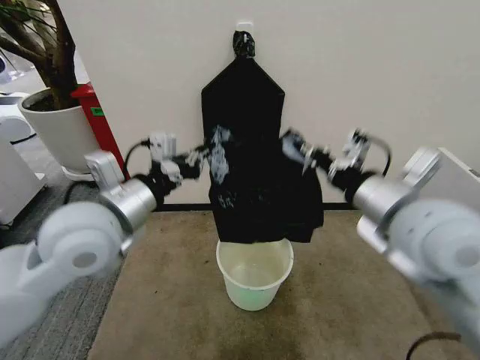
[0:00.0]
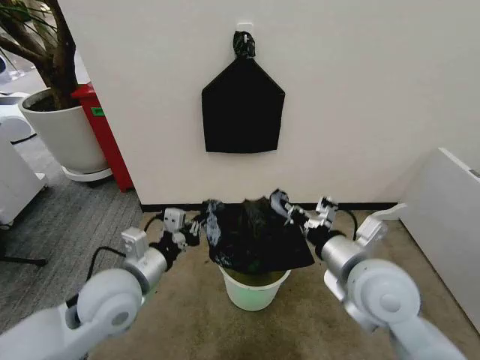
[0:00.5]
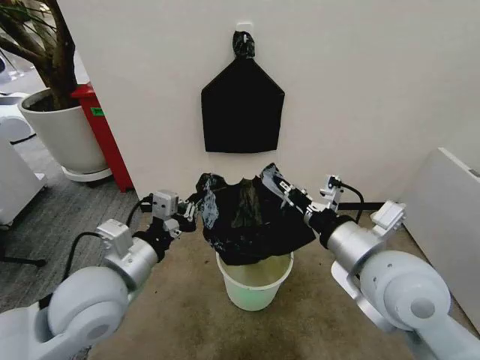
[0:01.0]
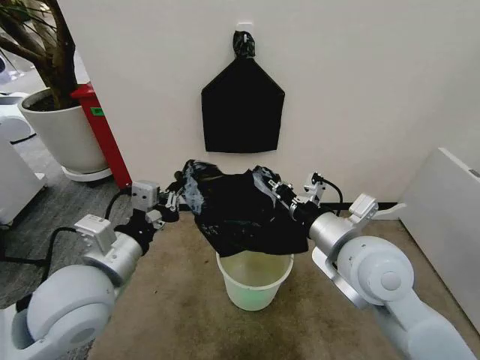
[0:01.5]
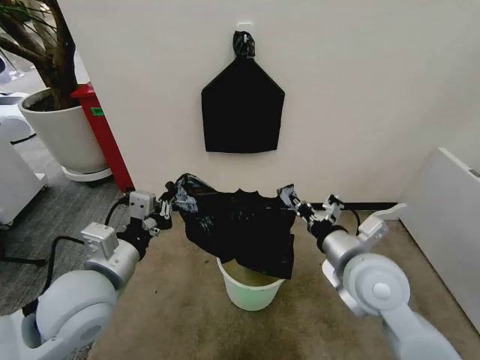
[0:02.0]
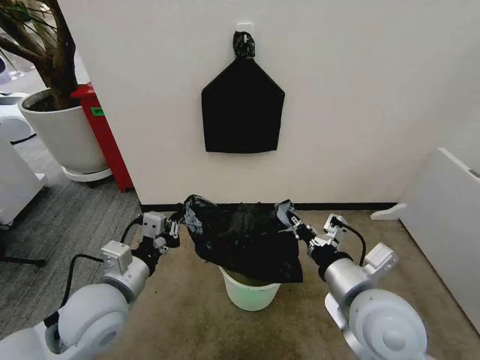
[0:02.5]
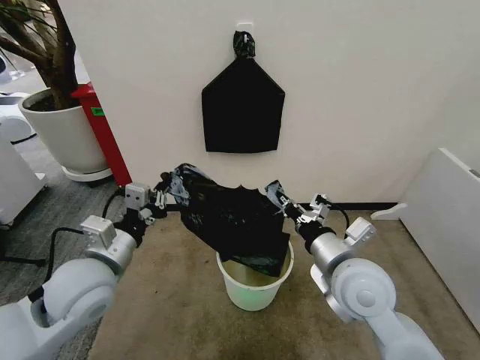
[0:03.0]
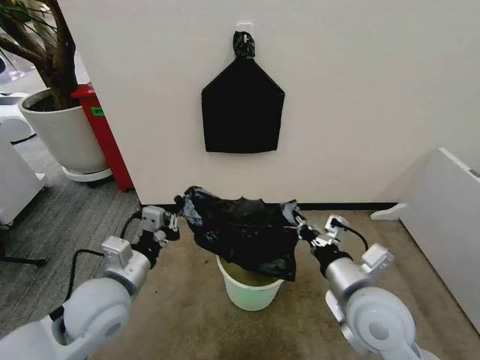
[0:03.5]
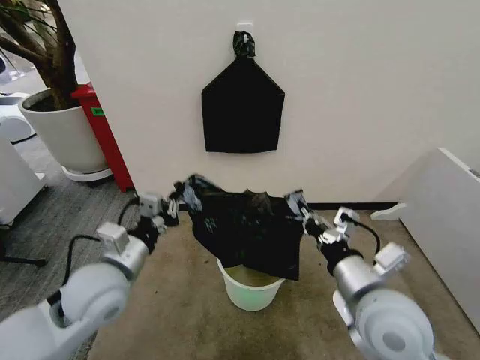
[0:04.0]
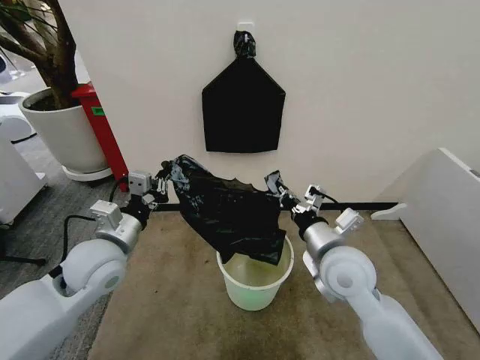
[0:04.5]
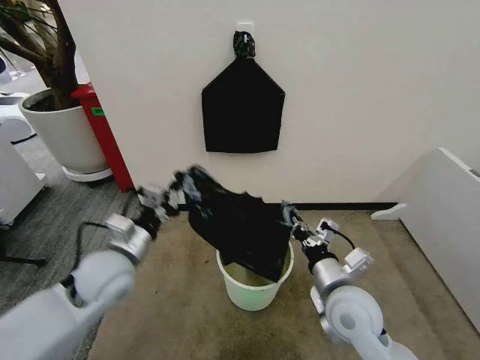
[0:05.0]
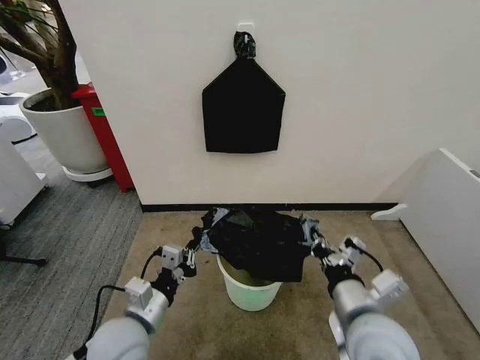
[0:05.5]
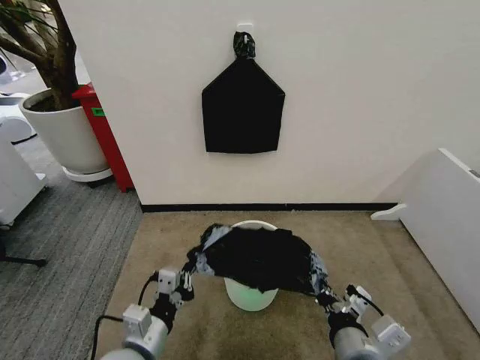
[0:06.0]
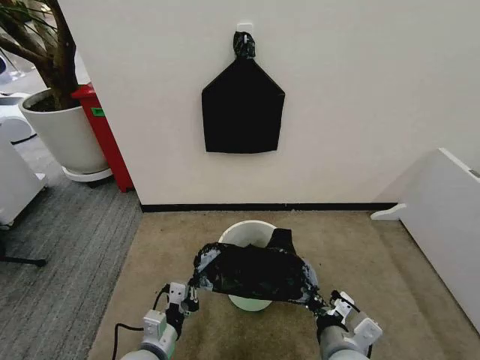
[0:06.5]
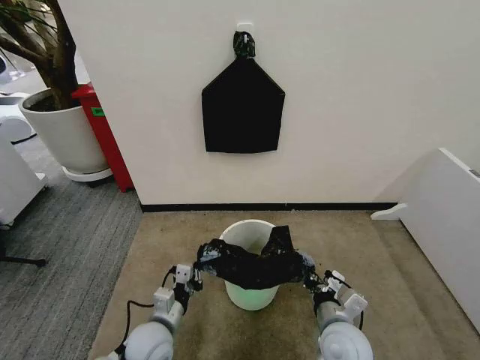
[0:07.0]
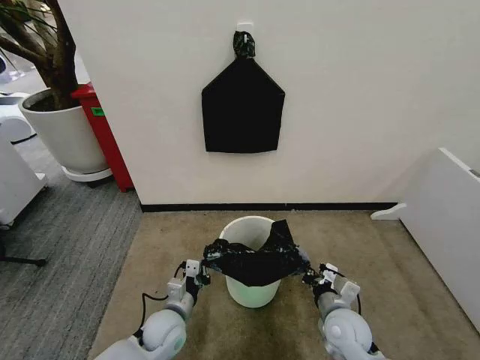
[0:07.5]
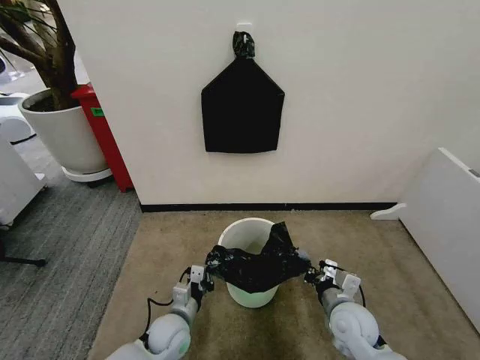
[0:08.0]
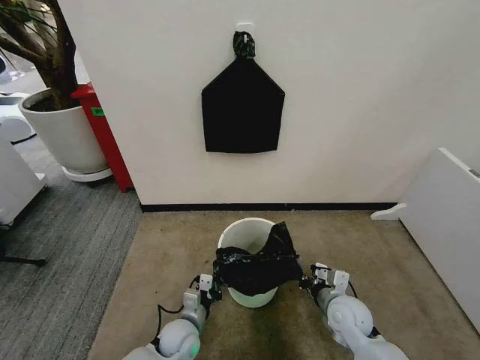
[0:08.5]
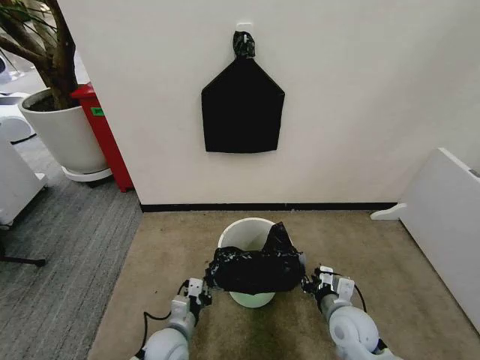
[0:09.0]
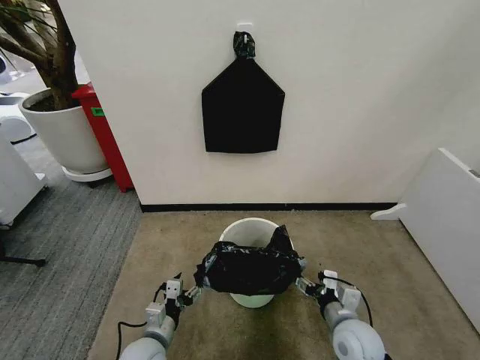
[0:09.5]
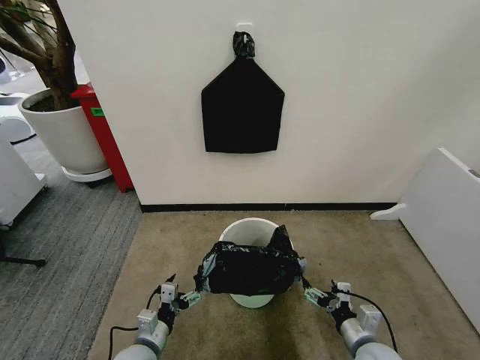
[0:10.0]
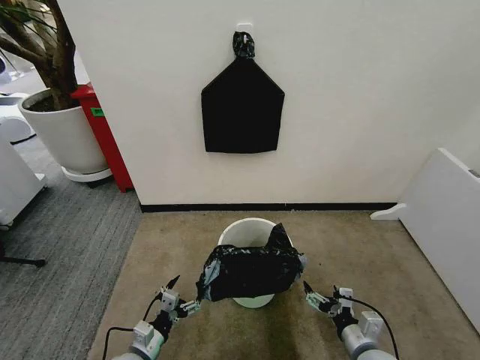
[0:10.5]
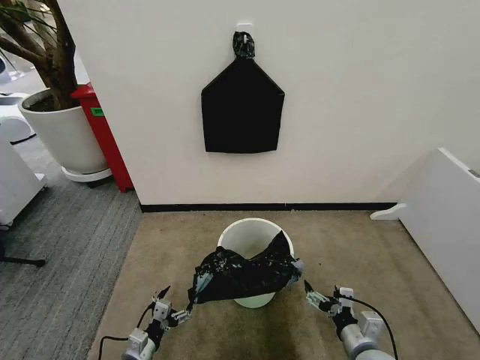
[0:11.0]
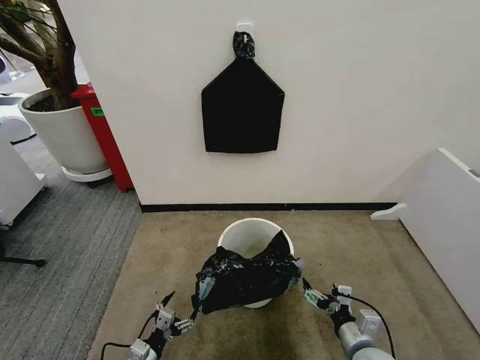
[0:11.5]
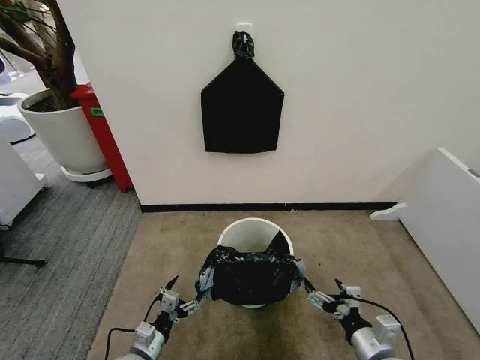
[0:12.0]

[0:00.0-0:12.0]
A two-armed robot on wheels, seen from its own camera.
Task of the whole recording: Place the garbage bag over the trash bin.
0:00.0 to 0:02.0: The right gripper swings up and down, approximately 10 cm each way, with 2 reversals. Meanwhile the left gripper heads downward and backward, covering approximately 10 cm.
0:02.0 to 0:04.0: The left gripper swings up and down, roughly 5 cm each way, with 2 reversals; the right gripper moves forward and backward over approximately 5 cm, changing direction 2 times.
0:04.0 to 0:06.0: The two grippers go some 15 cm backward and downward.
0:06.0 to 0:08.0: The right gripper moves downward, forward and to the right, roughly 20 cm. The left gripper shifts roughly 20 cm downward and forward.
0:08.0 to 0:10.0: The left gripper shifts roughly 10 cm to the left and backward, and opens its fingers. Meanwhile the right gripper moves backward, some 5 cm, and opens its fingers.
0:10.0 to 0:12.0: The right gripper changes place by approximately 5 cm.

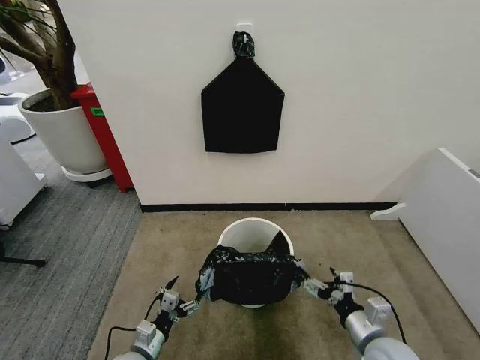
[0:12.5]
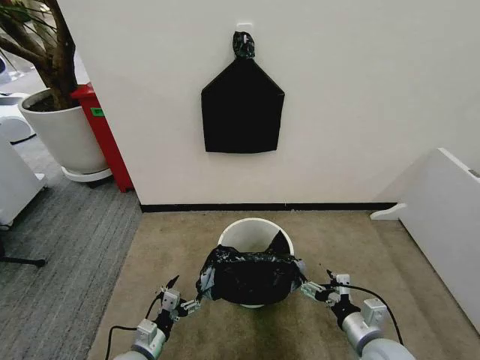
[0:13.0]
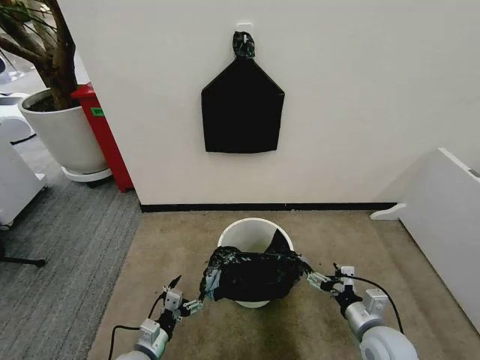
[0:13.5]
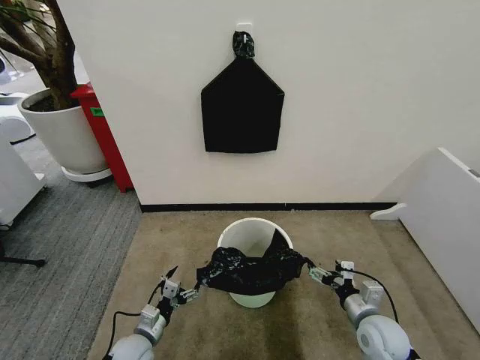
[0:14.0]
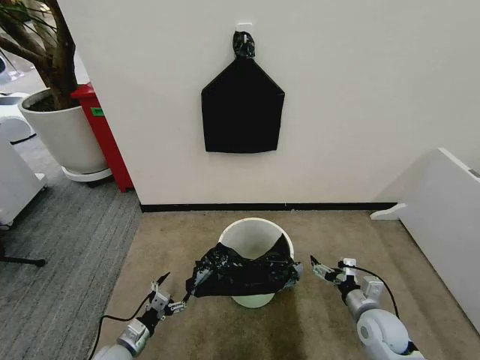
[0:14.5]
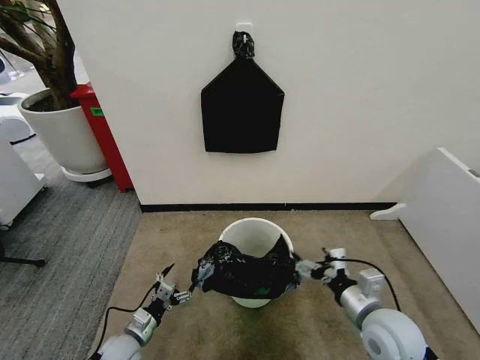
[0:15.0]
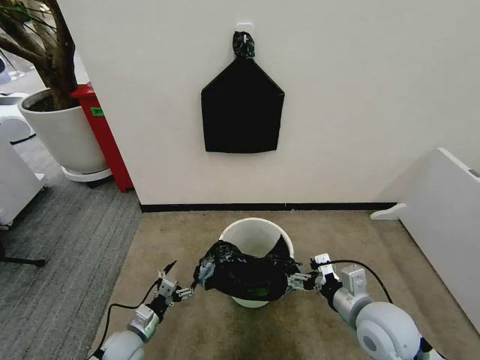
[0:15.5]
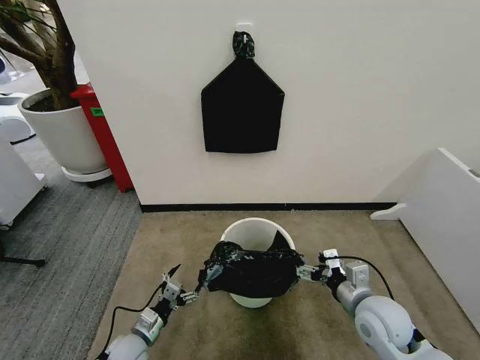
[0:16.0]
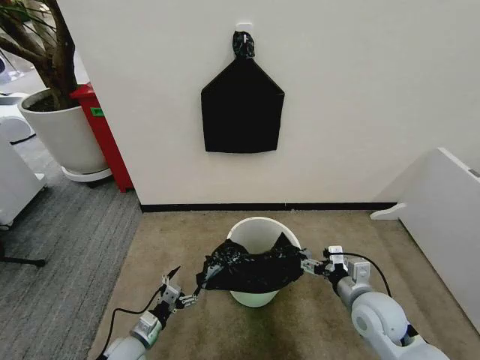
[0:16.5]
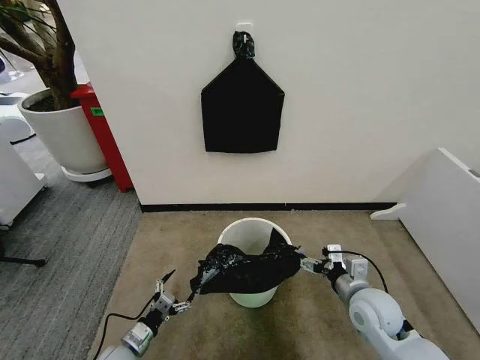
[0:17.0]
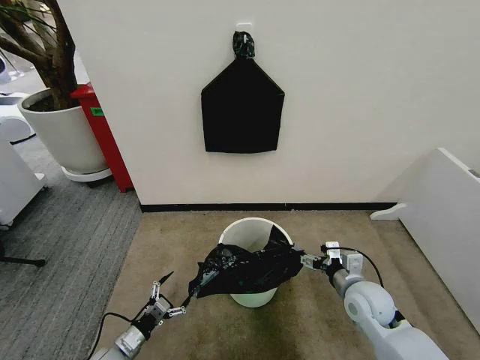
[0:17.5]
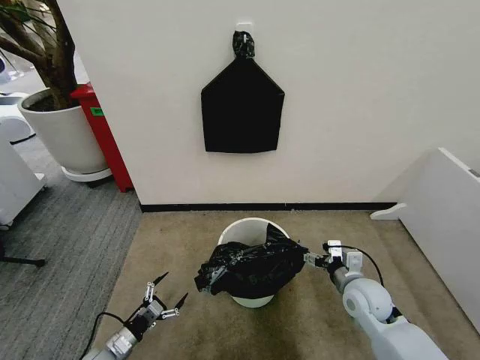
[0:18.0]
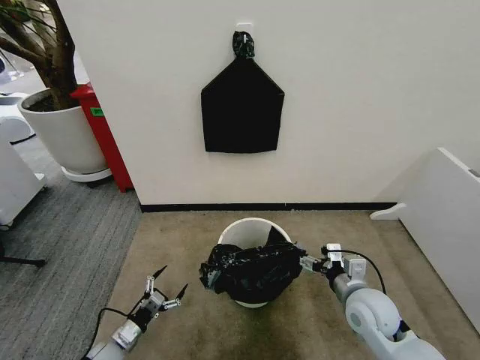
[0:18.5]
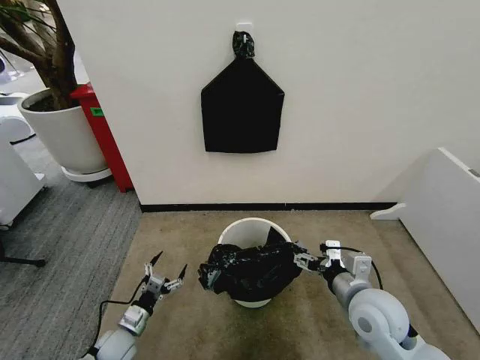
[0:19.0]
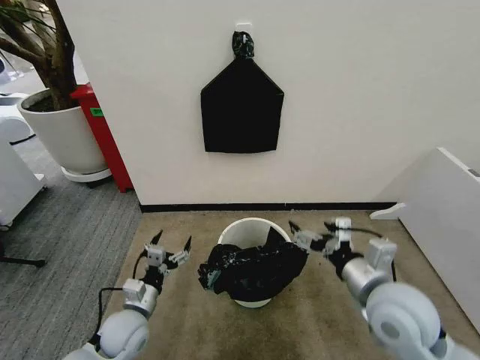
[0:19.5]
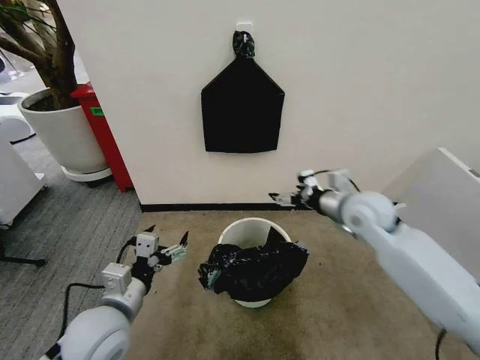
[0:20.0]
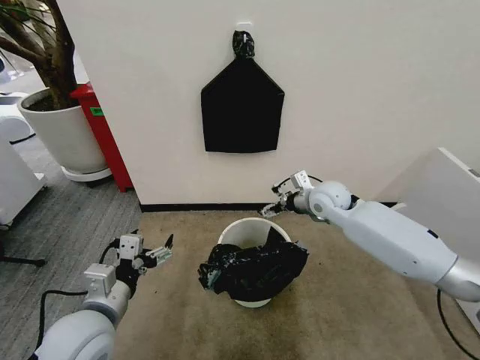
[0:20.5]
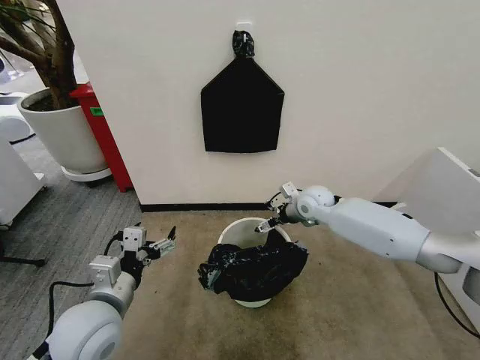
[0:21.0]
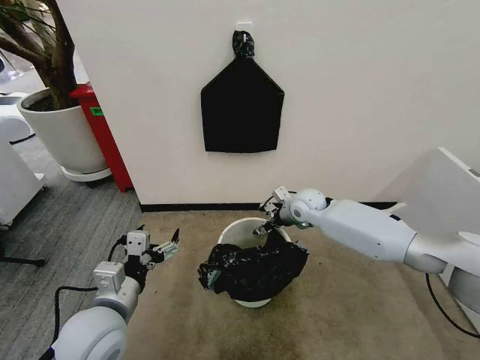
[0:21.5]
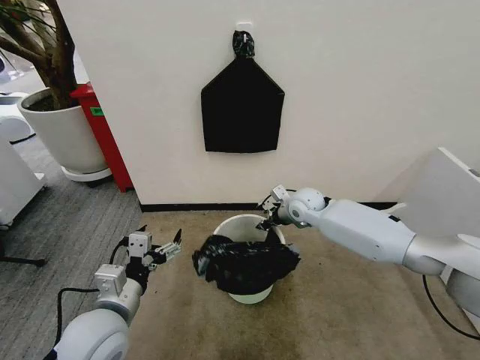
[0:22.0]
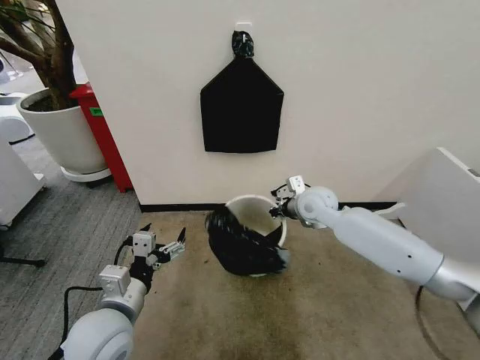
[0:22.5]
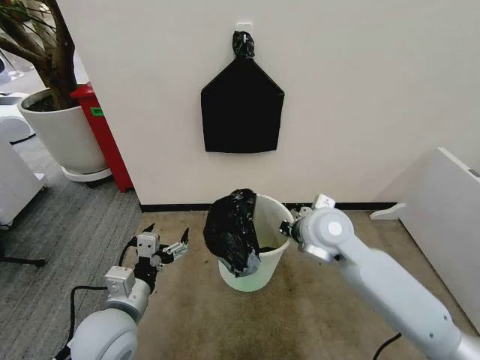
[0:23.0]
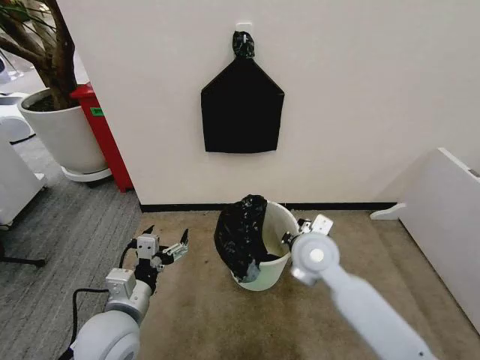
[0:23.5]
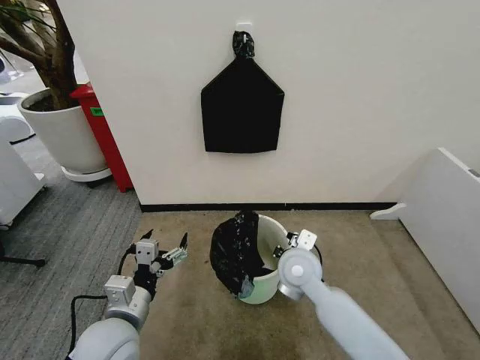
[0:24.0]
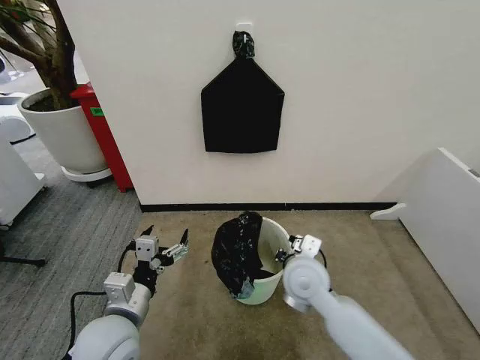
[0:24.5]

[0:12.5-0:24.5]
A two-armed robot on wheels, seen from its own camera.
Task of the whole recording: Place the garbage bag over the trash bin.
0:12.5 to 0:14.5: The left gripper travels to the left by roughly 5 cm. The right gripper heads forward and downward, covering some 10 cm.
0:14.5 to 0:16.5: The right gripper goes about 10 cm upward.
0:16.5 to 0:18.5: The left gripper moves to the left, about 5 cm.
0:18.5 to 0:20.5: The left gripper moves upward, about 30 cm. The right gripper travels forward and upward by roughly 25 cm.
0:20.5 to 0:22.5: The right gripper closes.
0:22.5 to 0:24.5: The right gripper moves backward, some 15 cm, and opens its fingers.

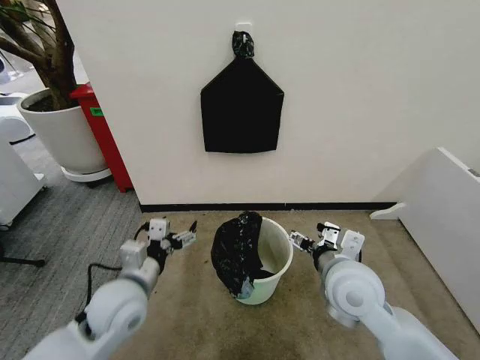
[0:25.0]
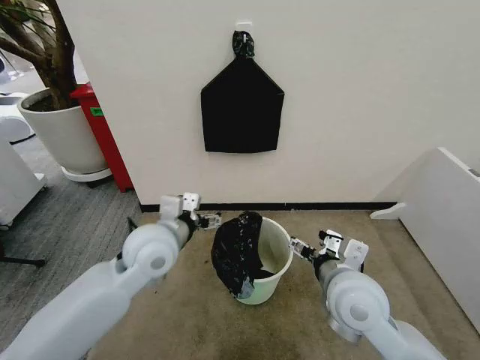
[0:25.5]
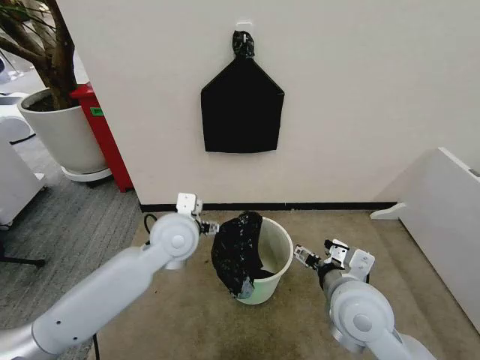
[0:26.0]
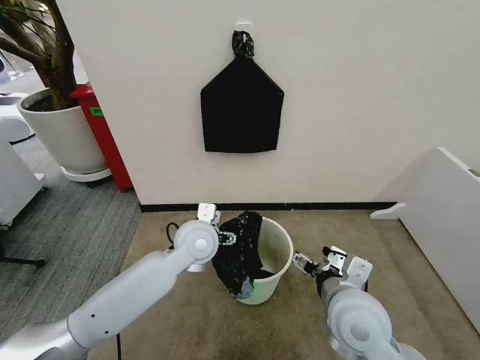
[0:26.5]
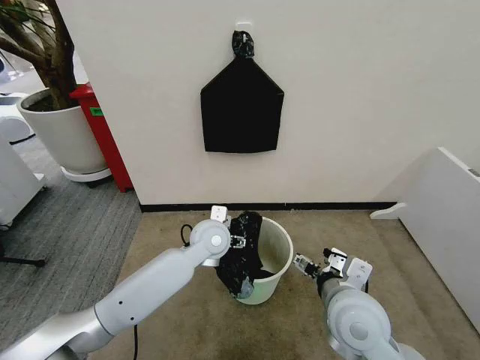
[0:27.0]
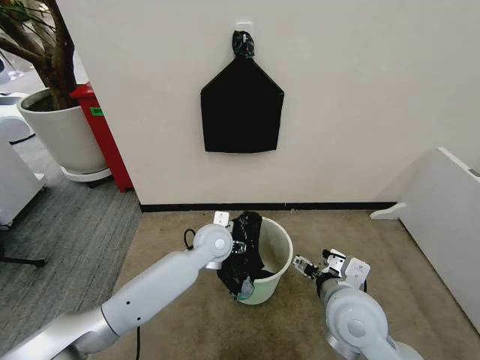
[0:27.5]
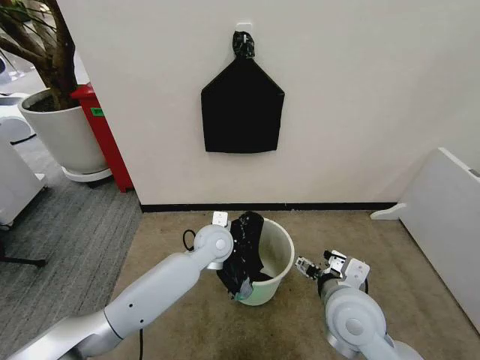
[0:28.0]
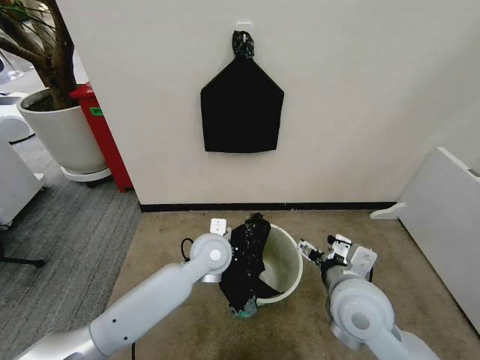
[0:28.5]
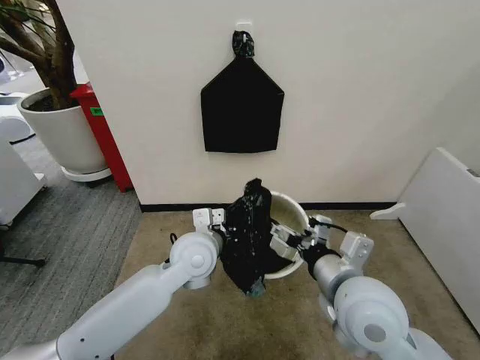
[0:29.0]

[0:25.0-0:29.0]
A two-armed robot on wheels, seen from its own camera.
Task of the whole recording: Place the garbage bag over the trash bin.
0:25.0 to 0:27.0: The left gripper heads forward and to the right, covering roughly 20 cm; the right gripper shifts by approximately 5 cm.
0:27.0 to 0:29.0: The left gripper heads backward, covering about 5 cm, and closes. Meanwhile the right gripper moves upward, approximately 5 cm.
